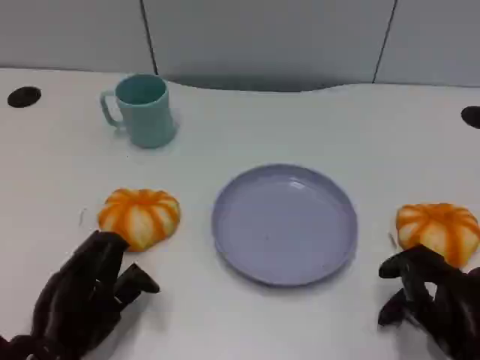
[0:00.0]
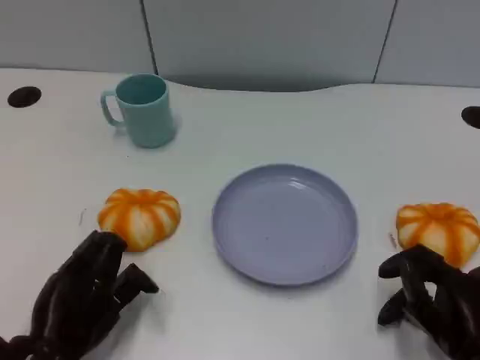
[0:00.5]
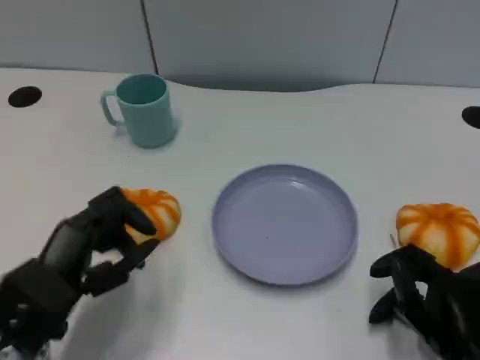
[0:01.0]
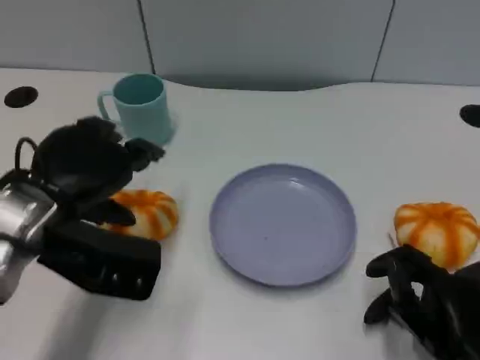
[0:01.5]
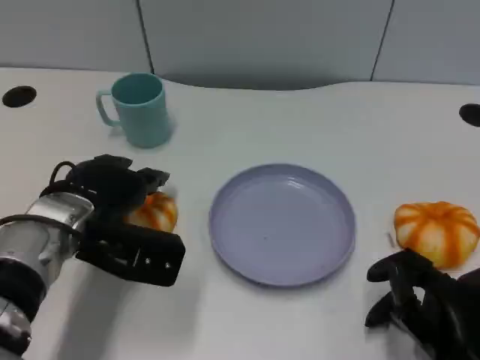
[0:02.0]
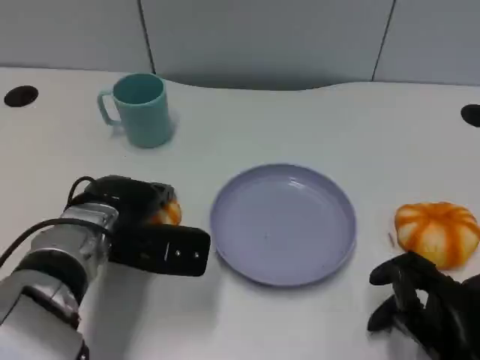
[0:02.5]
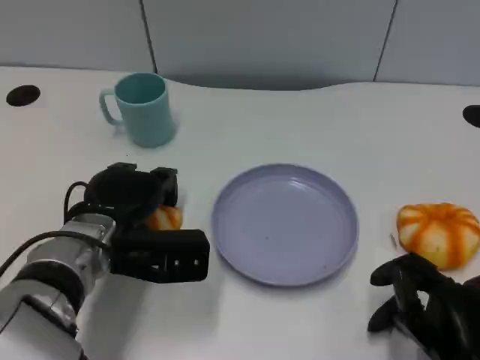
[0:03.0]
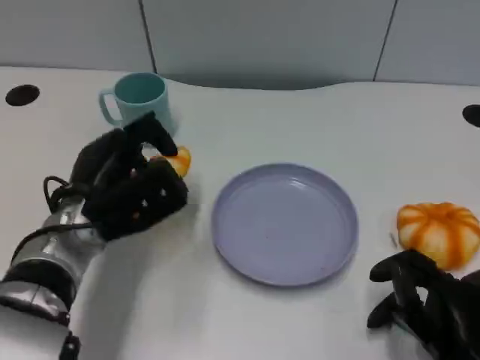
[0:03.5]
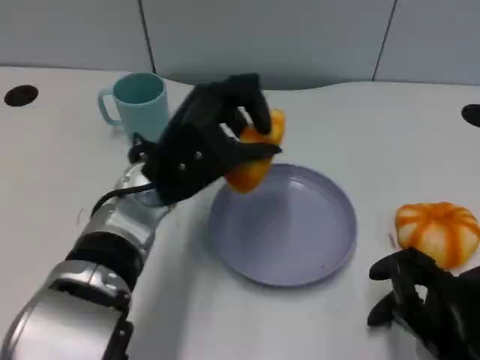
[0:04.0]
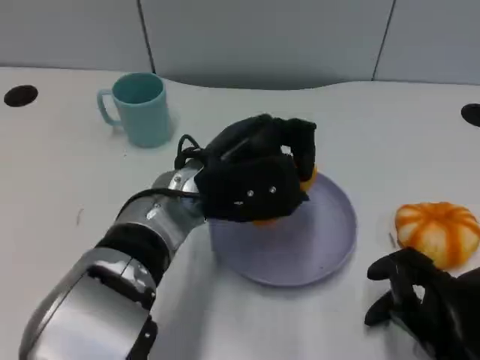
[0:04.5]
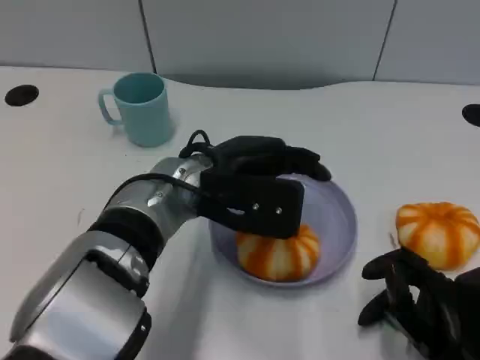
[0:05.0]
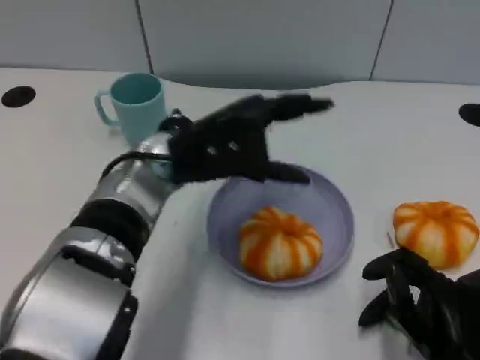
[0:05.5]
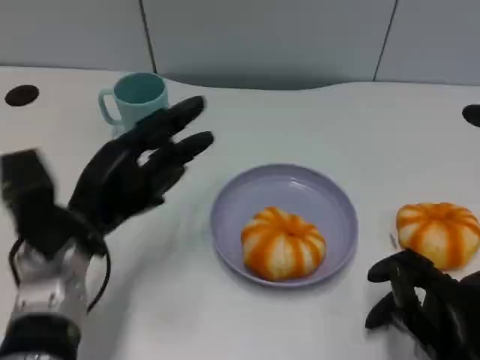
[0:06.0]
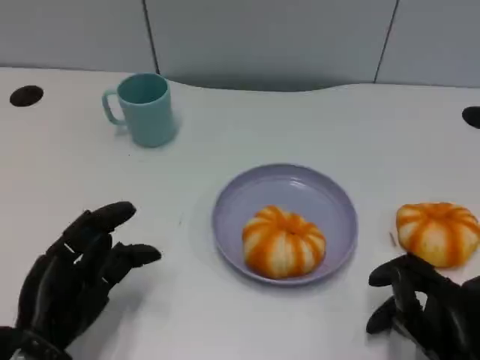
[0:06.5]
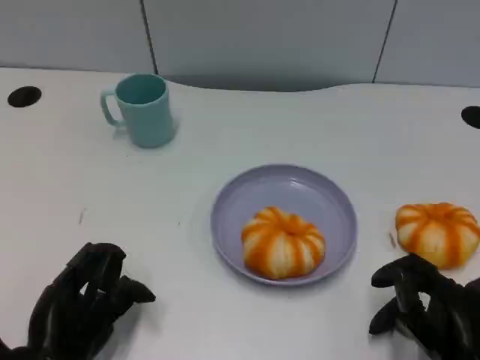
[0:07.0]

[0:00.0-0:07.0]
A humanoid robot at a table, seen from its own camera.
Task of the whole recording: Grasp the bread from the table and place it into the plate.
0:00.0 to 0:02.0: The left hand is displaced forward and upward by about 15 cm.
0:03.5 to 0:05.0: The left hand goes about 10 cm to the right.
0:05.0 to 0:07.0: The left hand heads to the left, backward and downward, covering about 25 cm.

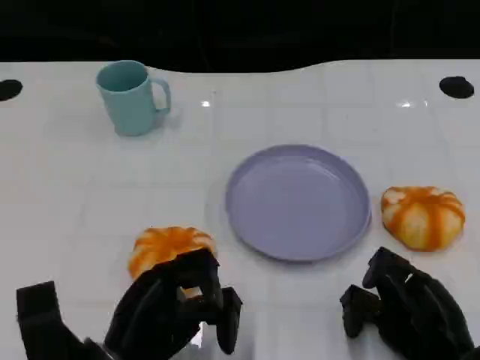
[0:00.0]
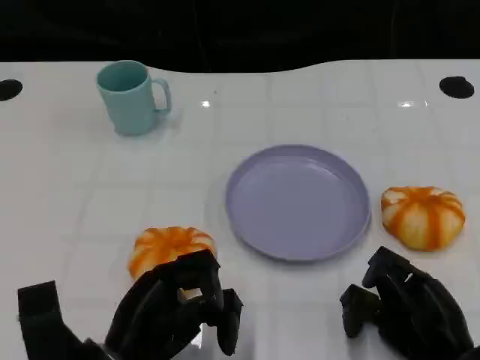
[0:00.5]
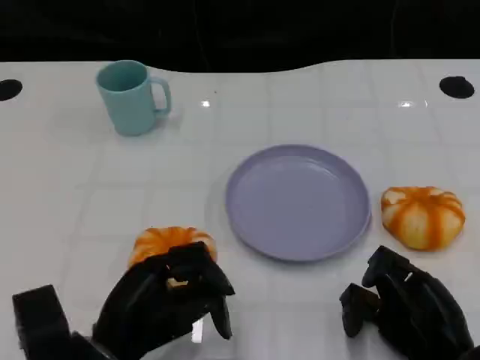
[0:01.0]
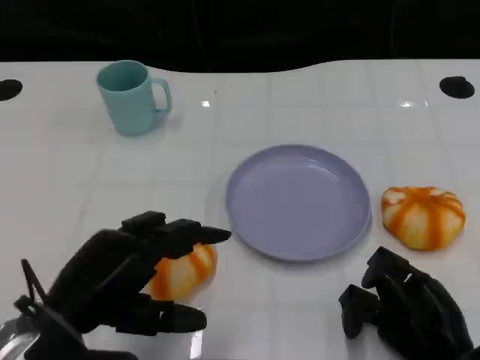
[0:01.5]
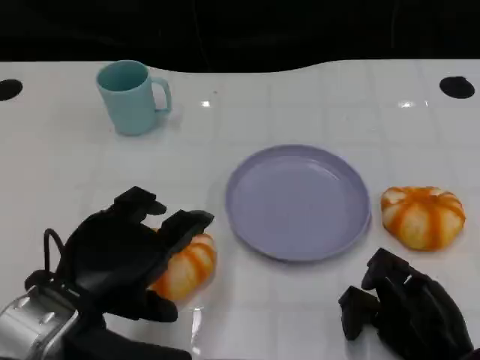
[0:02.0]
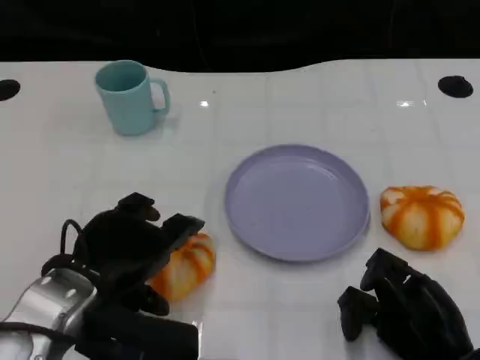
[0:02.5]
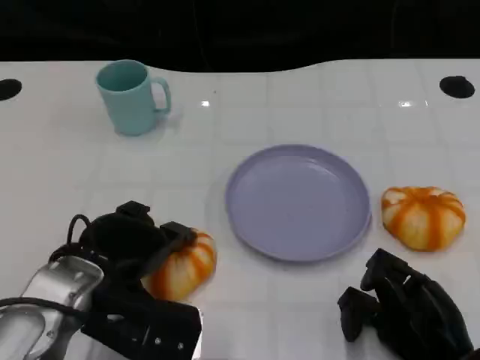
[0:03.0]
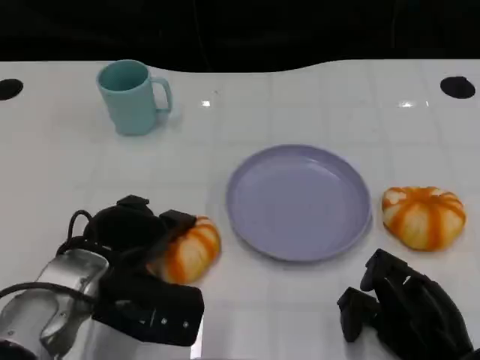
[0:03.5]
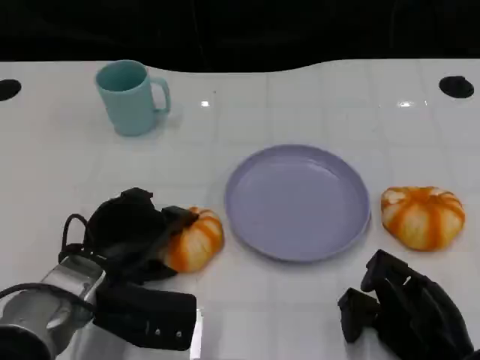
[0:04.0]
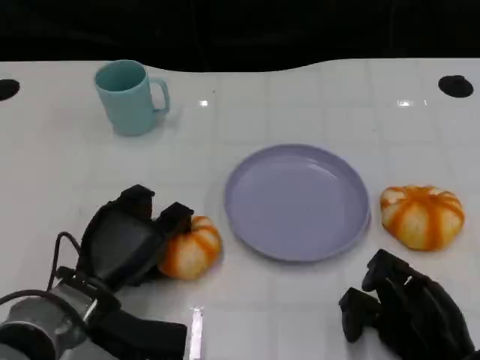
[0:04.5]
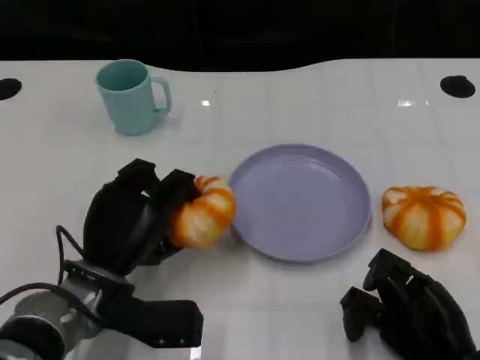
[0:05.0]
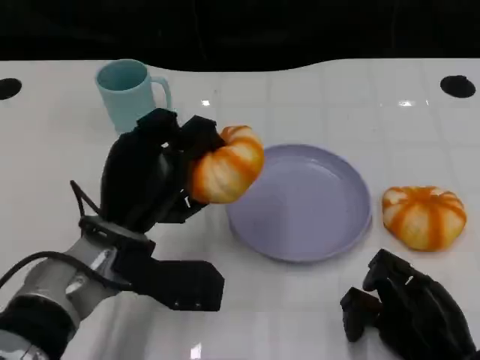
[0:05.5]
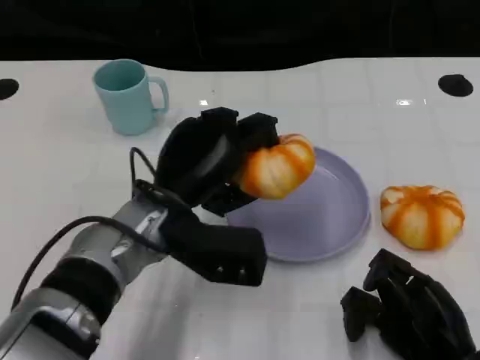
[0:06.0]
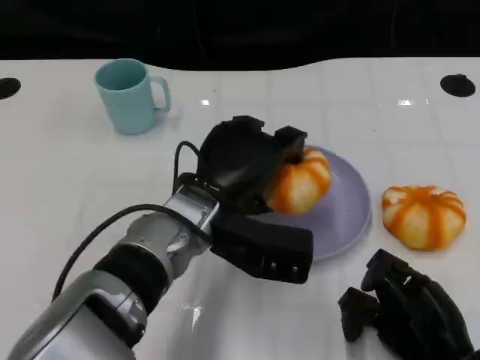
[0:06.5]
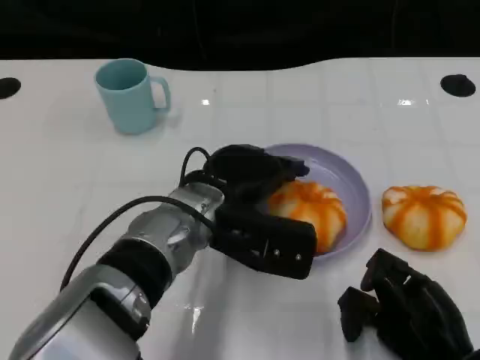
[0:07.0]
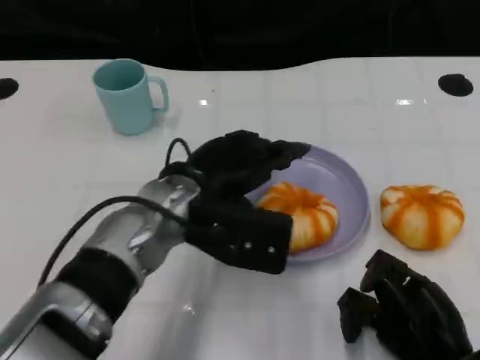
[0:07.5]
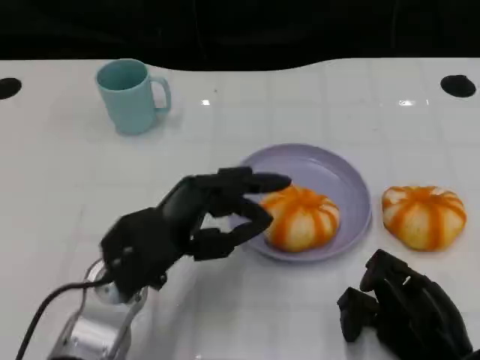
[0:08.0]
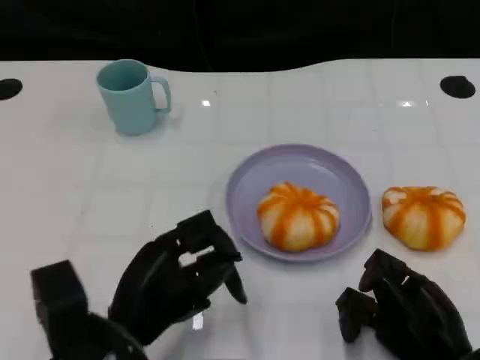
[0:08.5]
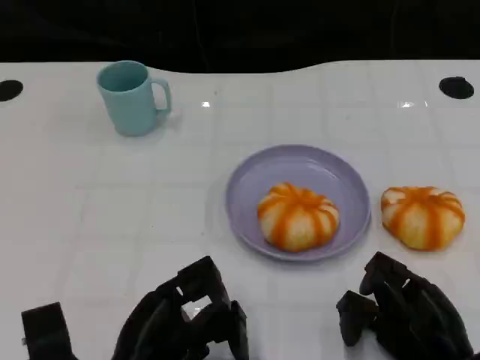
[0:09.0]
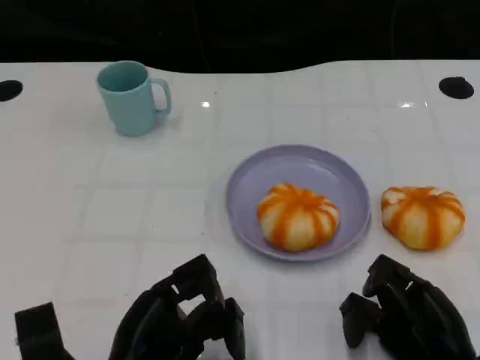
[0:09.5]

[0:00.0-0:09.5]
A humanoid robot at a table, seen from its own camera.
Task of the whole recording: Grasp the bread from the table and place it into the plate.
0:00.0 to 0:02.0: The left hand travels upward by roughly 10 cm.
0:02.0 to 0:04.0: The left hand travels downward and forward by some 10 cm.
0:04.0 to 0:05.5: The left hand changes place by some 5 cm.
0:05.5 to 0:07.5: The left hand moves to the right, approximately 5 cm.
0:07.5 to 0:09.5: The left hand moves backward, downward and to the left, some 20 cm.

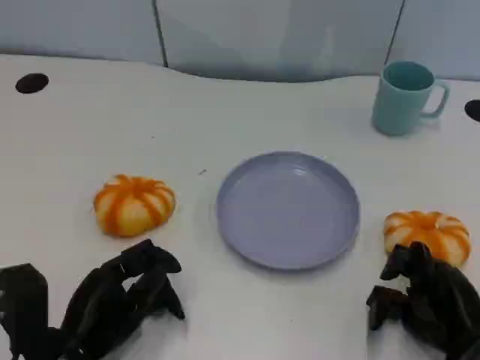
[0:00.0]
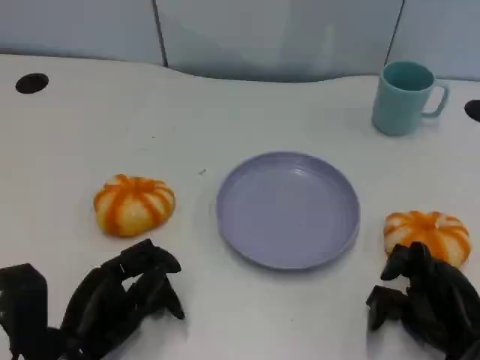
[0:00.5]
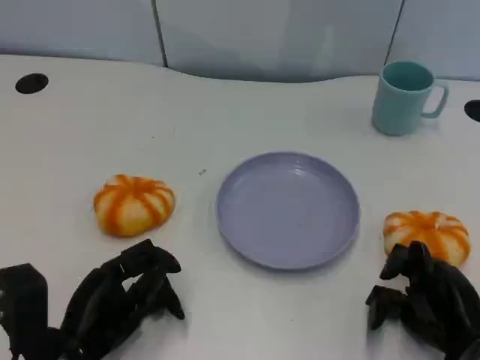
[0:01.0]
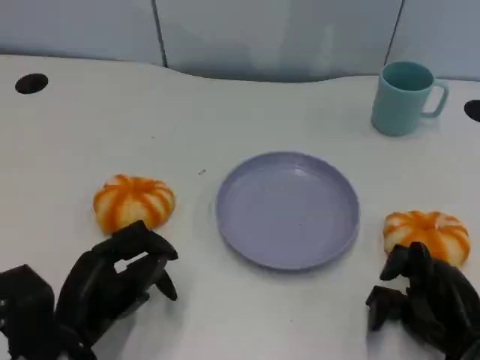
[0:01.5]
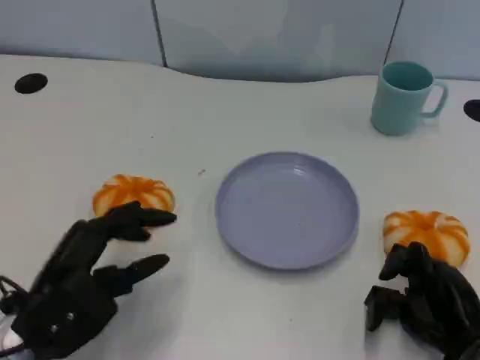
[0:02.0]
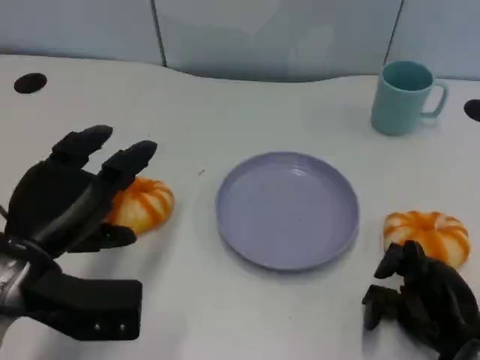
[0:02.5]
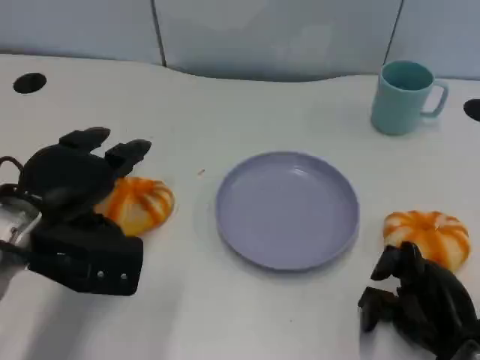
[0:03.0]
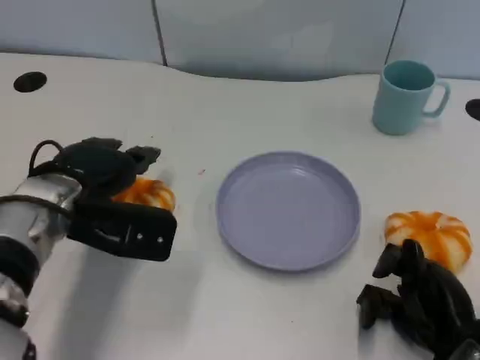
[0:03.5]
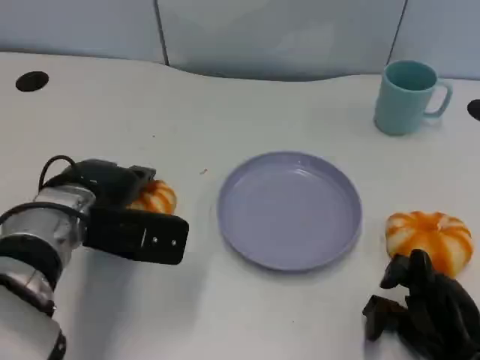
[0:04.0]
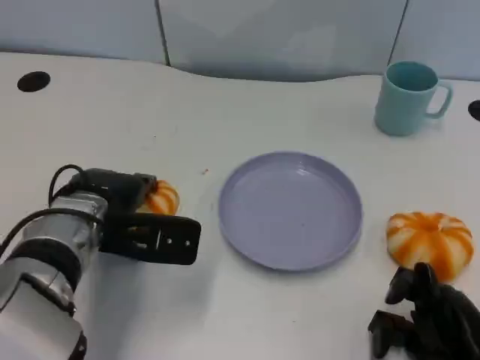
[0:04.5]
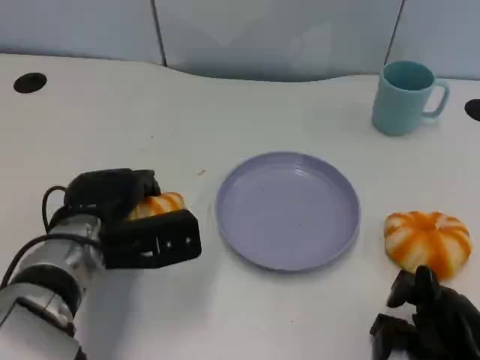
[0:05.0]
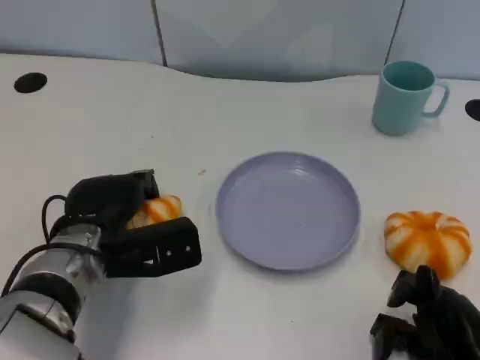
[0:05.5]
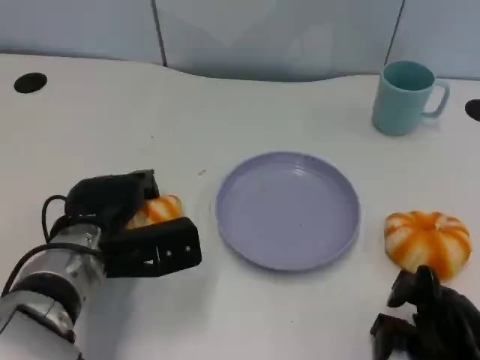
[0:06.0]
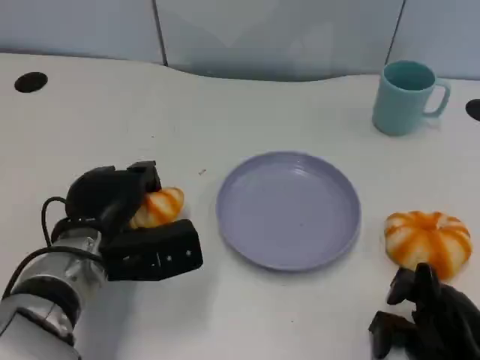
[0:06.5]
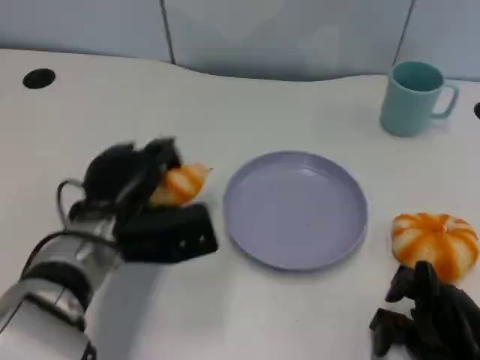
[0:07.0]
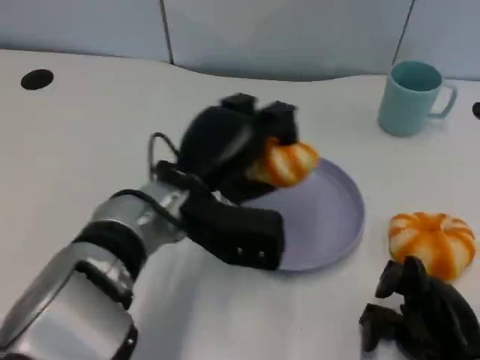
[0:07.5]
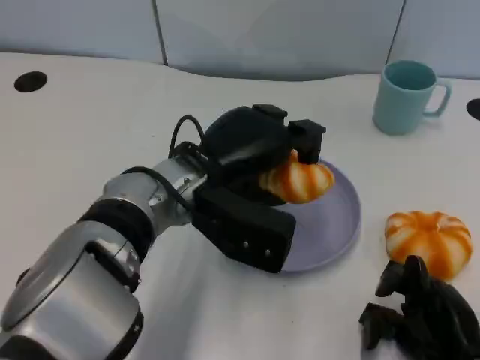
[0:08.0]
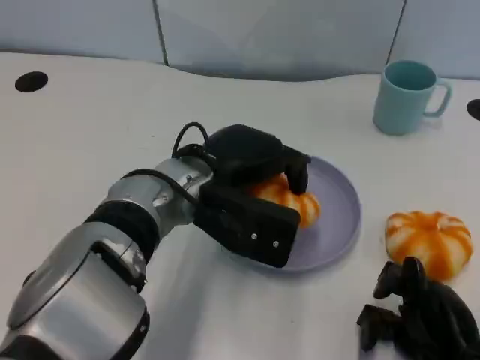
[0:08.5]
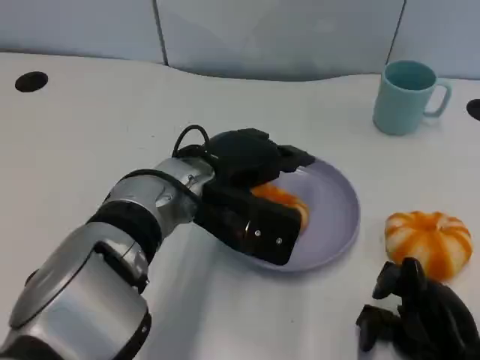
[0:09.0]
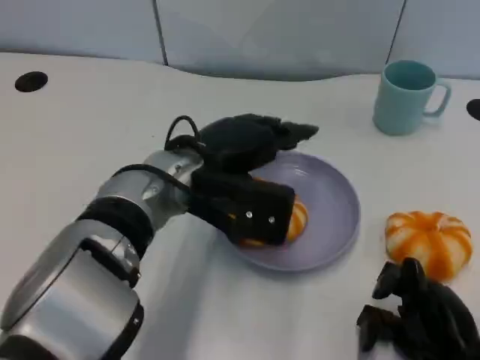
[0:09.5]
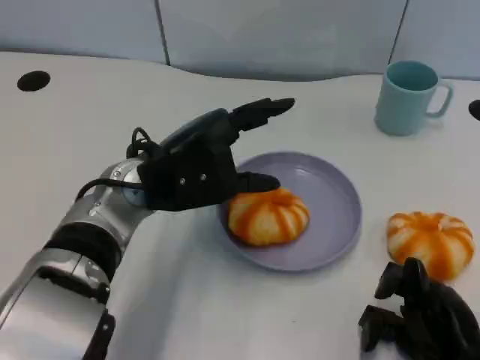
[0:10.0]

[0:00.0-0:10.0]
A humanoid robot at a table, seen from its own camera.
Task of the whole recording: Grasp the bread from the table and place it into the plate.
0:00.0 to 0:02.0: The left hand is displaced upward by about 5 cm.
0:02.0 to 0:04.0: The left hand moves forward, approximately 10 cm.
0:06.0 to 0:08.0: The left hand goes some 15 cm to the right and upward.
